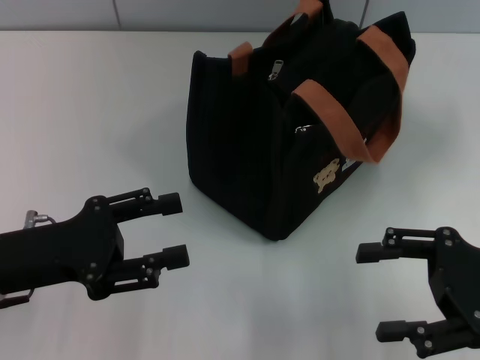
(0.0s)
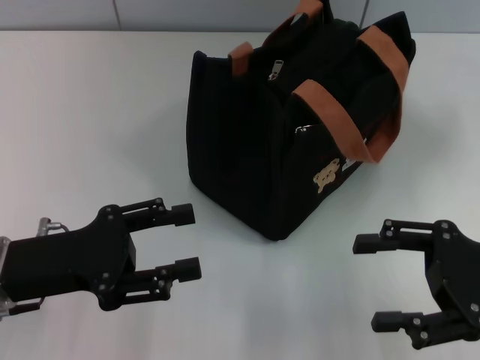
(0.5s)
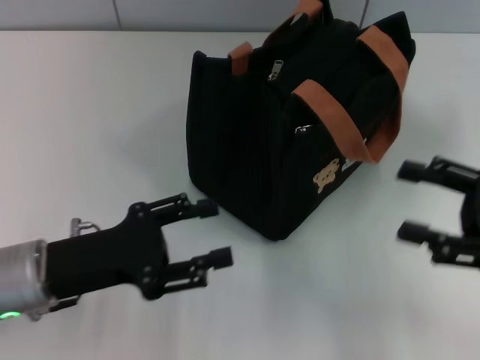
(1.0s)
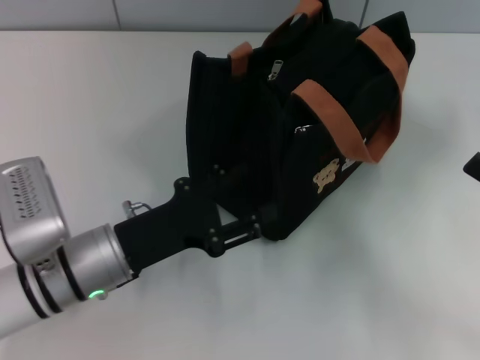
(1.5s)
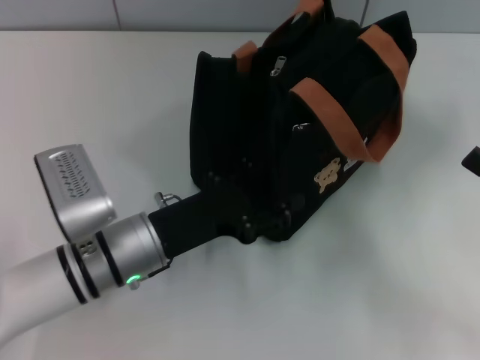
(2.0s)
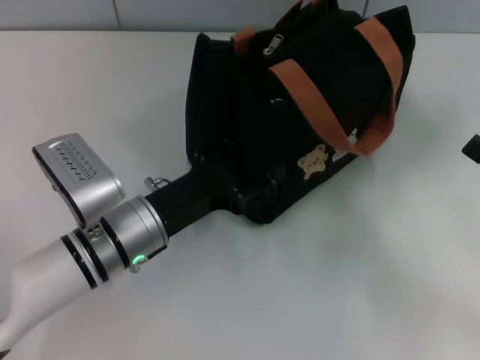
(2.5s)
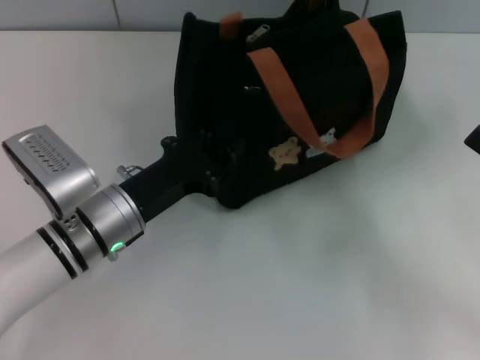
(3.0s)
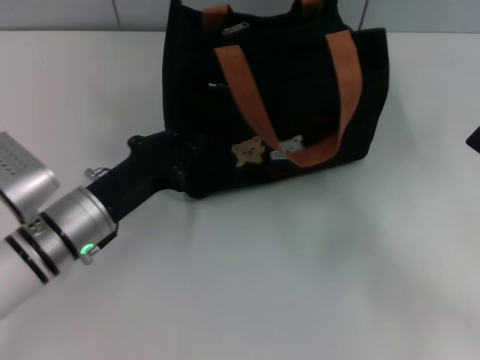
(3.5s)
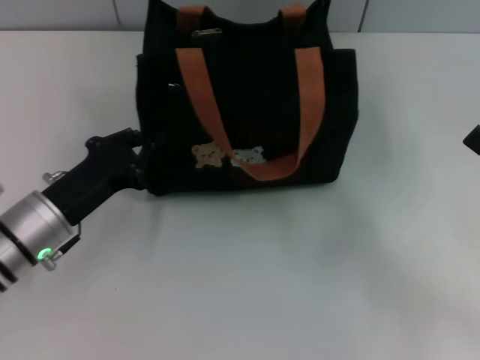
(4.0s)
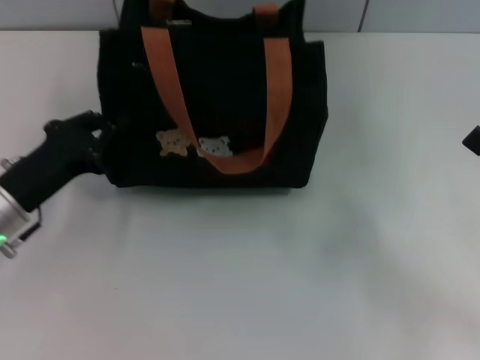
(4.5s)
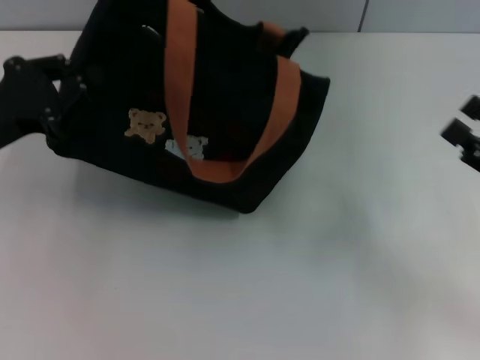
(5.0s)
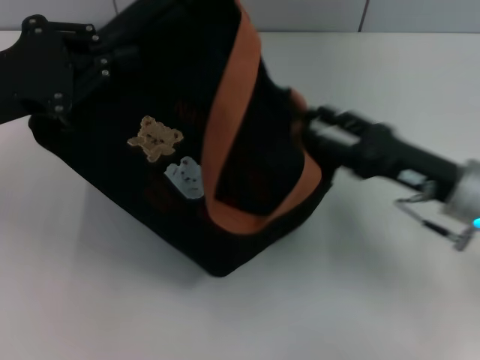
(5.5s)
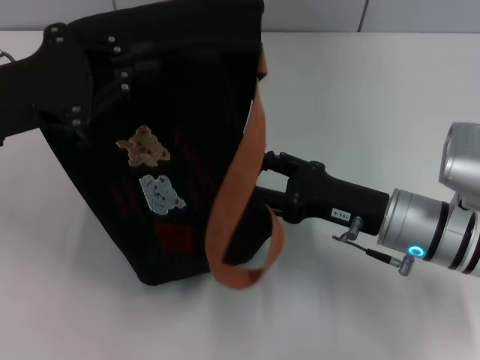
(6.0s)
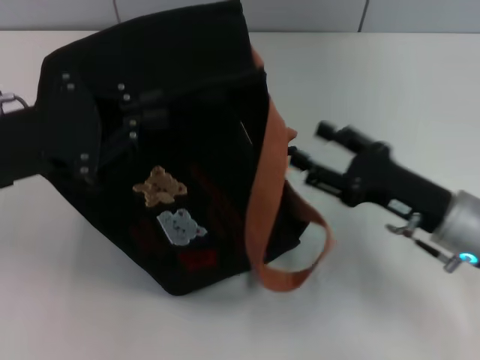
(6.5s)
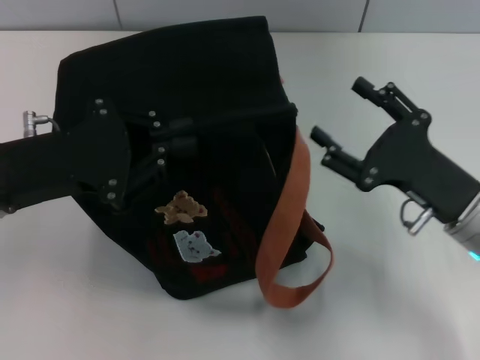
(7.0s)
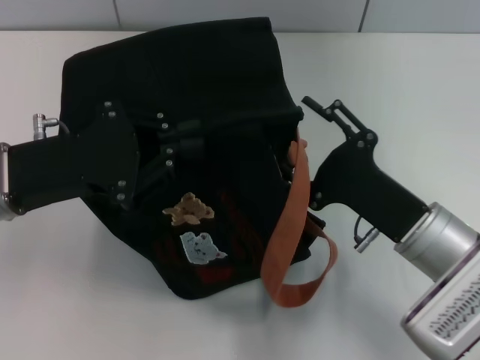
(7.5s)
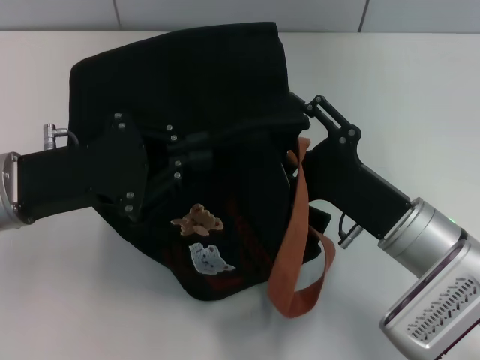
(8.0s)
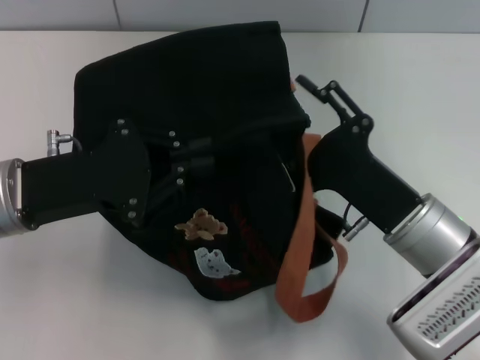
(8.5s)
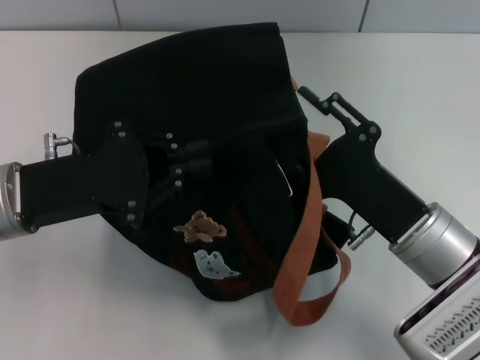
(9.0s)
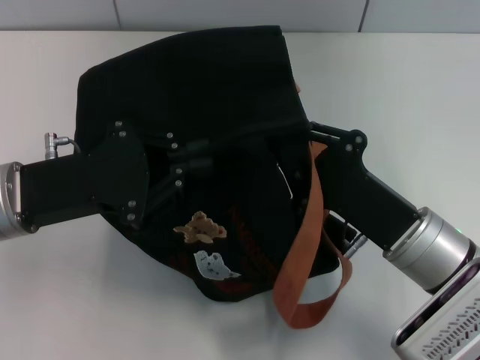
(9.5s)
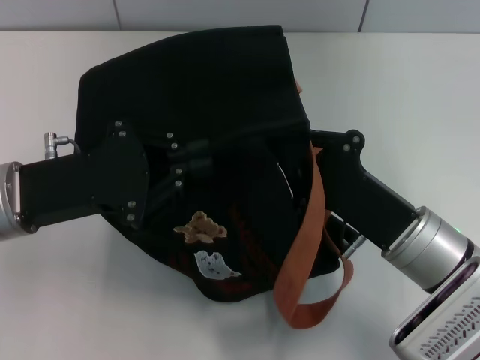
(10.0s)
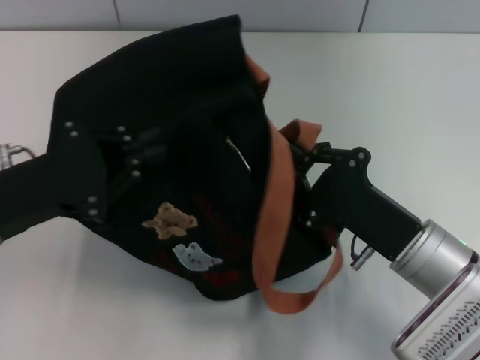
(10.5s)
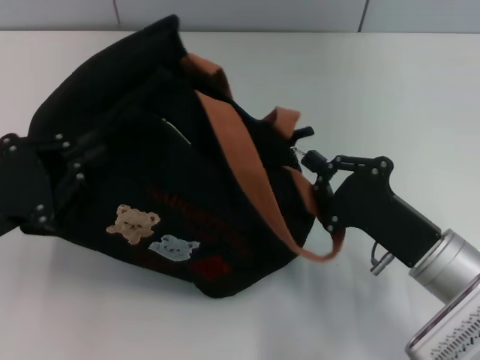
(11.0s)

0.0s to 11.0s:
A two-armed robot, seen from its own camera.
0.0s to 2.0s: The left gripper travels to the right and downward by roughly 15 cm; the right gripper travels to the right by approximately 5 cm.
2.0s to 3.5s: The left gripper shifts by about 5 cm, and closes up.
3.5s to 5.5s: The left gripper goes some 15 cm upward and to the left. Meanwhile the right gripper shifts about 15 cm to the left and forward.
5.5s to 7.5s: The right gripper goes left and right, about 5 cm each way, reversing 2 times. Meanwhile the left gripper changes place by about 5 cm.
9.0s to 11.0s: The left gripper goes some 5 cm to the left. Meanwhile the right gripper closes its fingers.

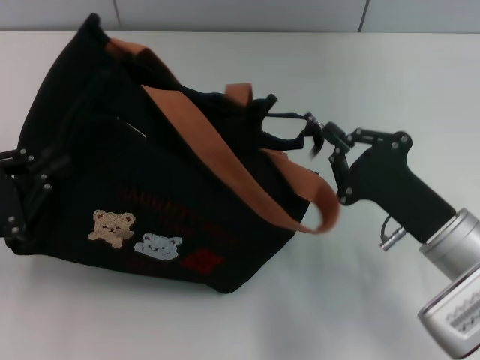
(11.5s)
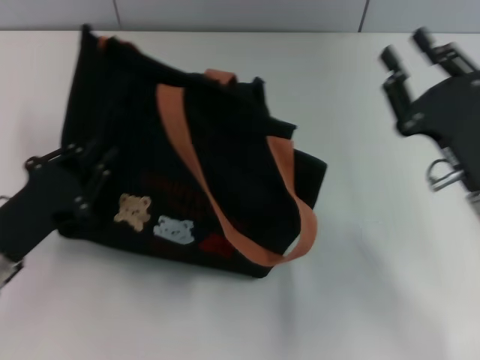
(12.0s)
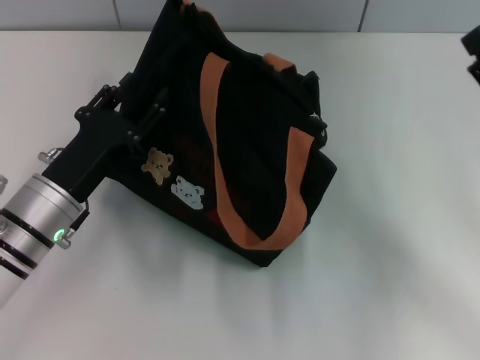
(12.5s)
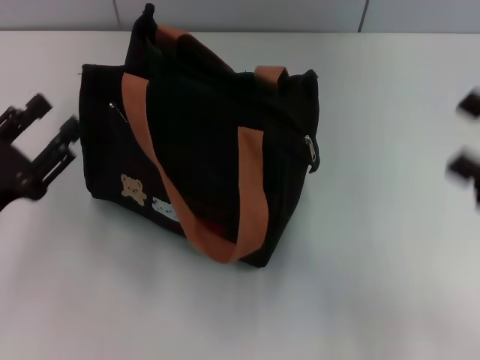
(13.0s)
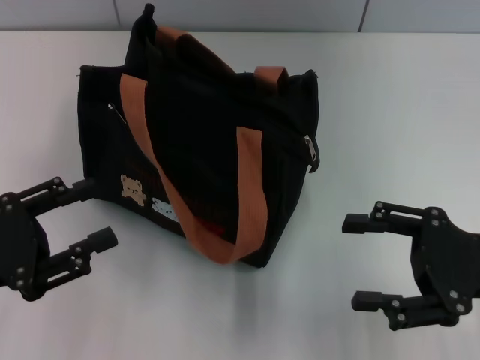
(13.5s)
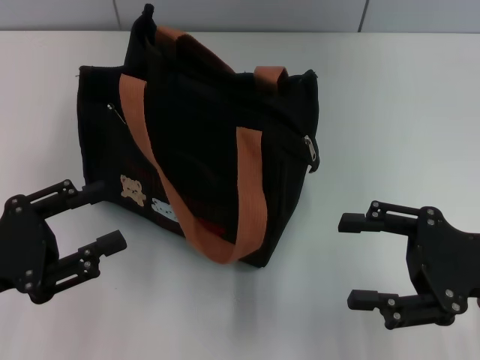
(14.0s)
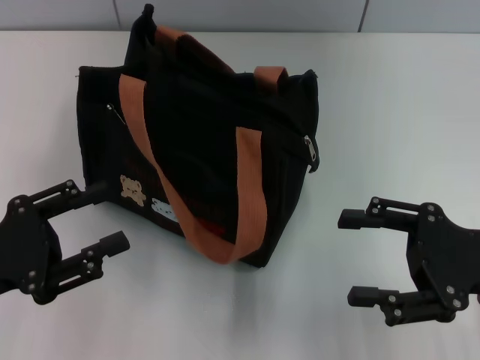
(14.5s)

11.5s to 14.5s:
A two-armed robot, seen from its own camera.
Step, 12.0s to 12.5s: Grab the bag with your left hand.
11.5s to 13.0s: The right gripper goes approximately 15 cm to the right and upward, and opens; the left gripper goes to the right and returns, some 10 cm each way, and opens its fingers.
13.0s to 14.5s: The right gripper moves to the left, about 5 cm.
